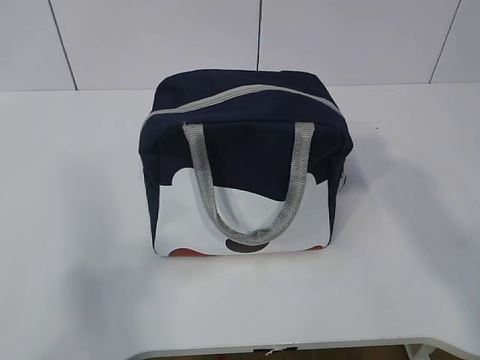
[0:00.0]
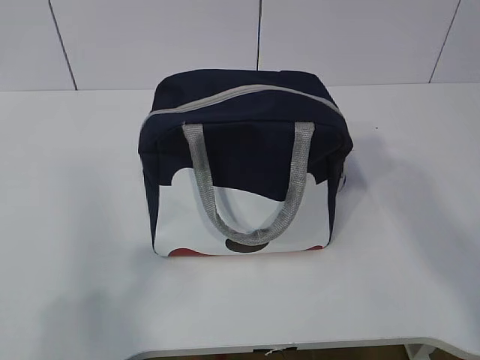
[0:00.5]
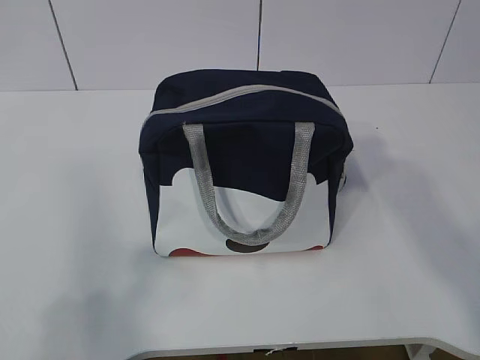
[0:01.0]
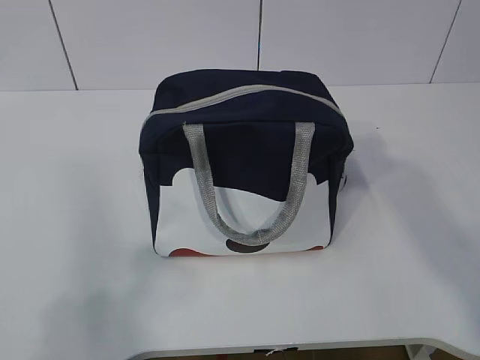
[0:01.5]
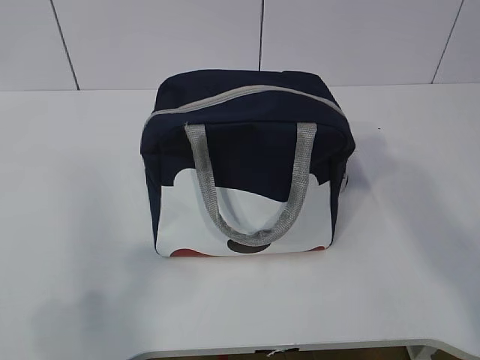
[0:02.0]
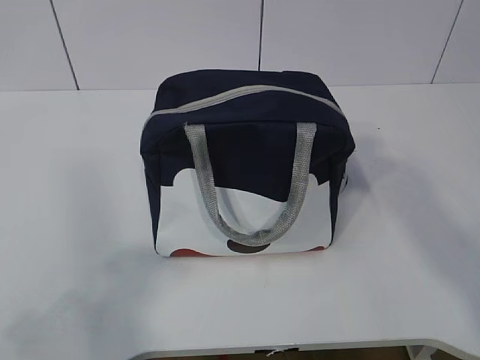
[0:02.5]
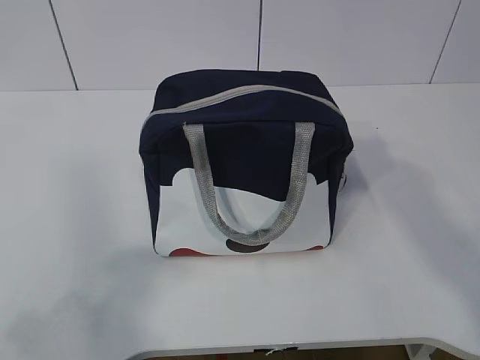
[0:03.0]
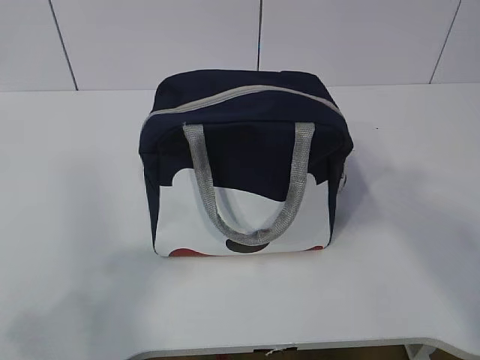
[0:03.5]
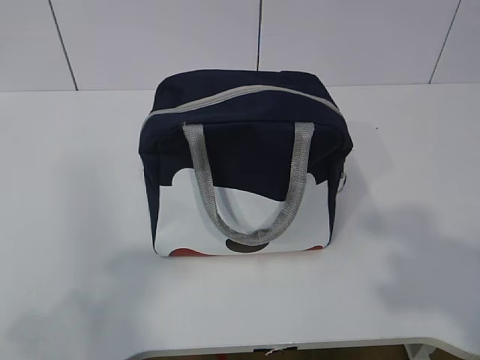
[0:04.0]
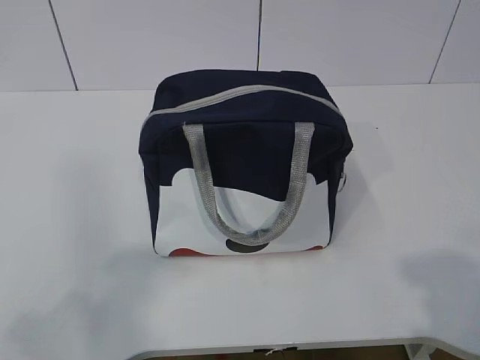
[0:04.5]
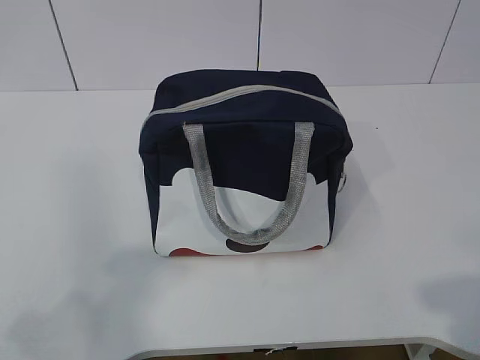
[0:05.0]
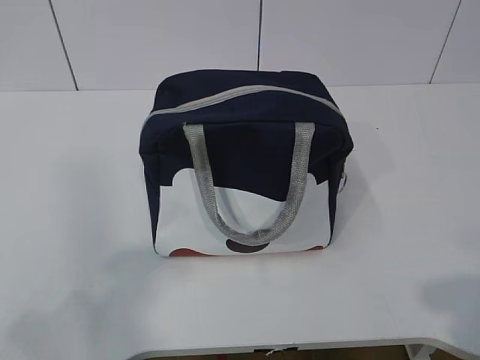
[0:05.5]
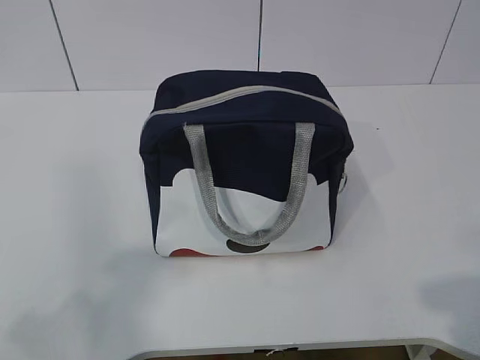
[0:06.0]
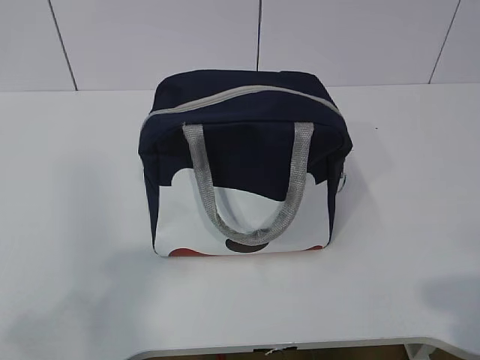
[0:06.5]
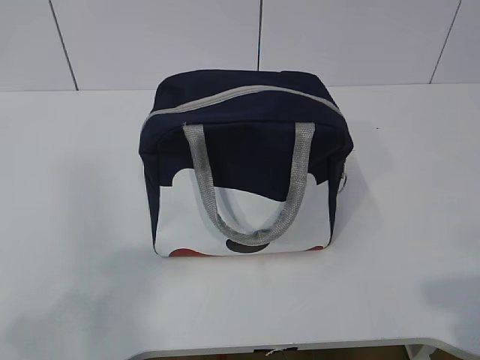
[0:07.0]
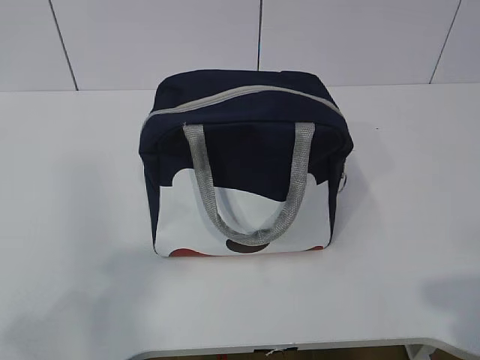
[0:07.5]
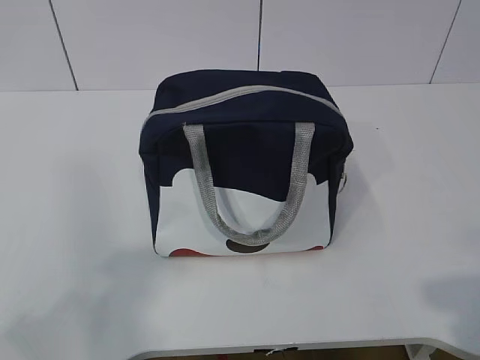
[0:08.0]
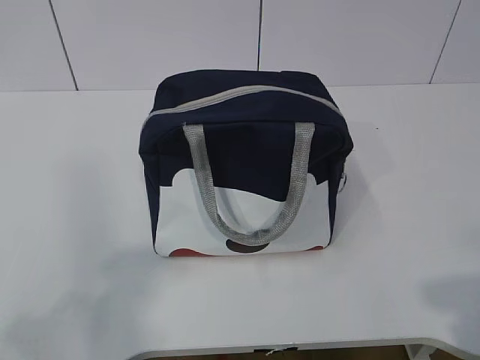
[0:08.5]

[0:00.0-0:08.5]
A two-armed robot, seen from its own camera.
0:00.0 to 0:02.0: There are only small adjustments of the grippers.
0:02.0 to 0:04.0: The right gripper is displaced backward and downward by approximately 15 cm.
0:06.5 to 0:08.5: Neither gripper changes place.
